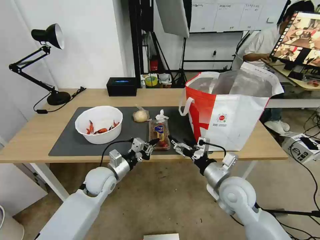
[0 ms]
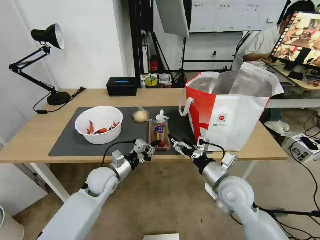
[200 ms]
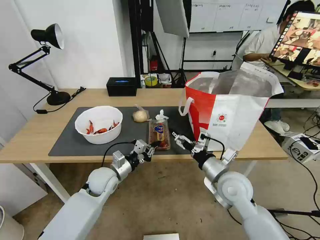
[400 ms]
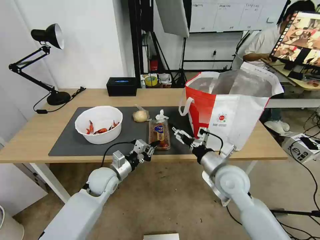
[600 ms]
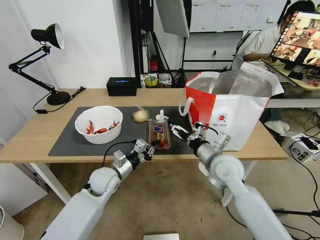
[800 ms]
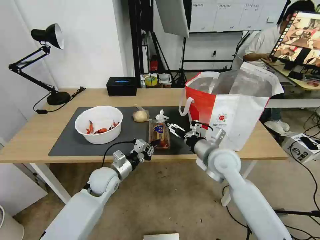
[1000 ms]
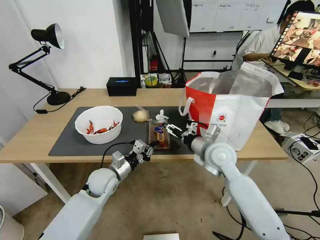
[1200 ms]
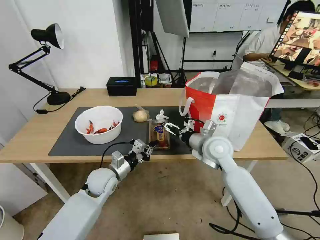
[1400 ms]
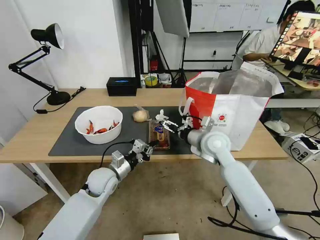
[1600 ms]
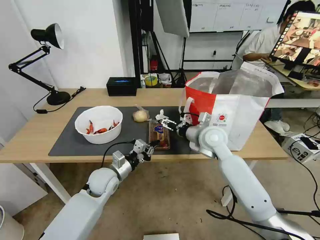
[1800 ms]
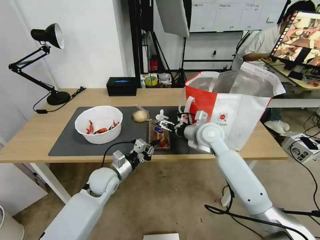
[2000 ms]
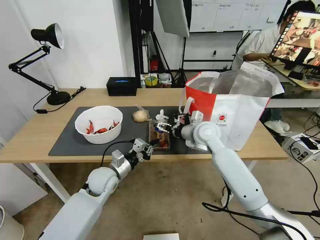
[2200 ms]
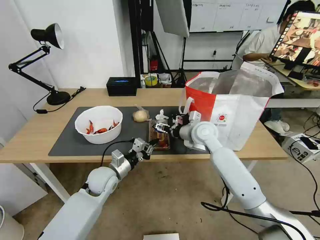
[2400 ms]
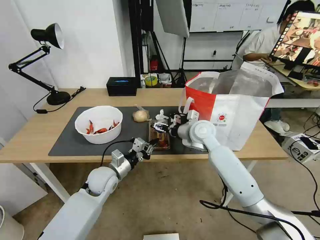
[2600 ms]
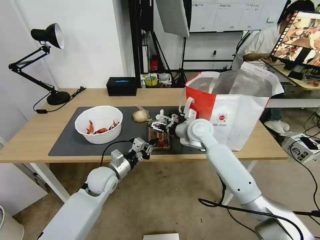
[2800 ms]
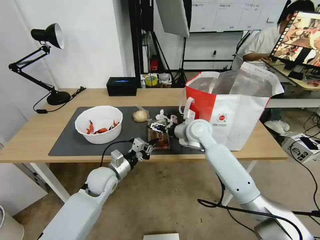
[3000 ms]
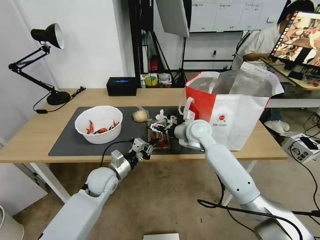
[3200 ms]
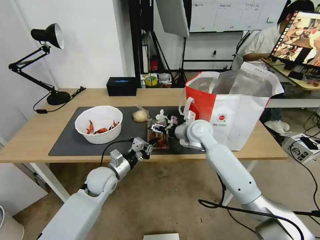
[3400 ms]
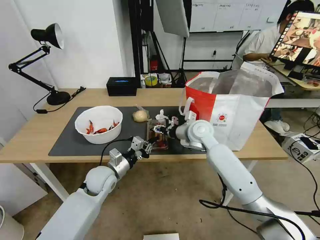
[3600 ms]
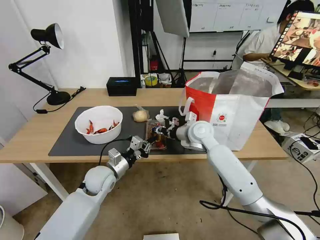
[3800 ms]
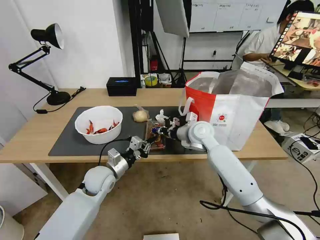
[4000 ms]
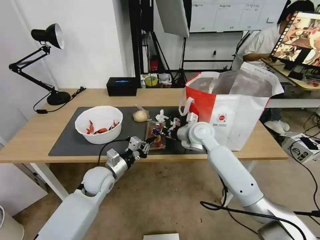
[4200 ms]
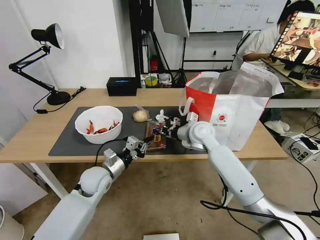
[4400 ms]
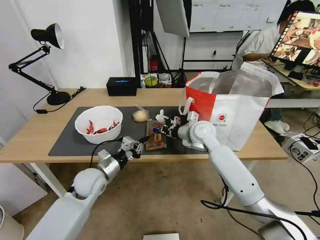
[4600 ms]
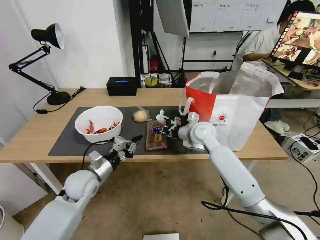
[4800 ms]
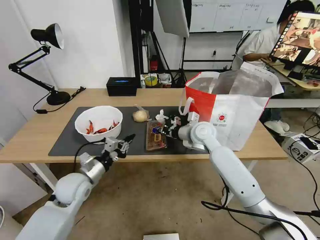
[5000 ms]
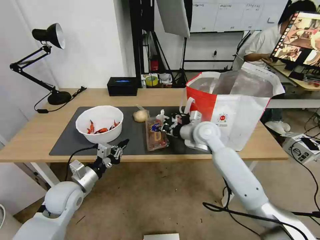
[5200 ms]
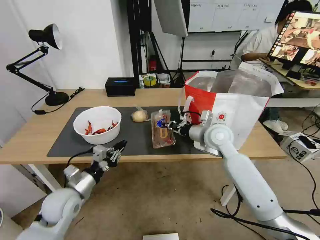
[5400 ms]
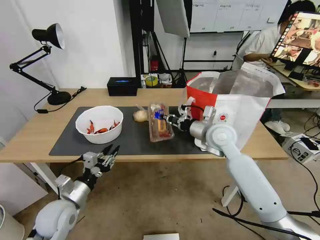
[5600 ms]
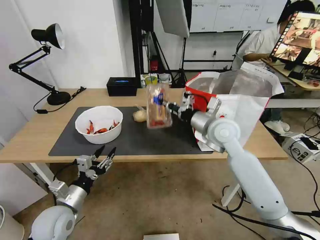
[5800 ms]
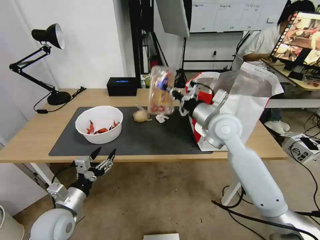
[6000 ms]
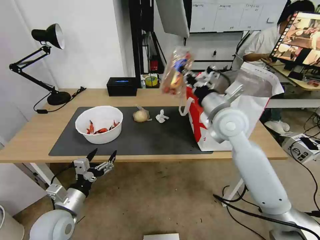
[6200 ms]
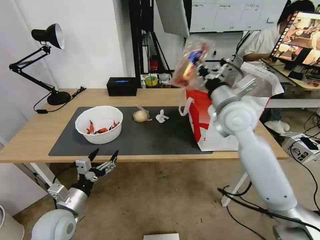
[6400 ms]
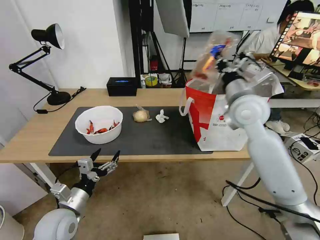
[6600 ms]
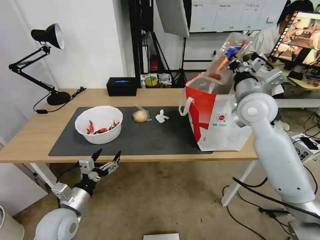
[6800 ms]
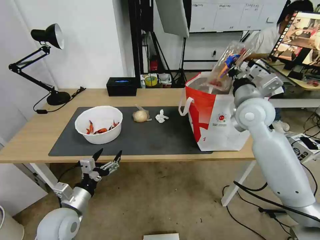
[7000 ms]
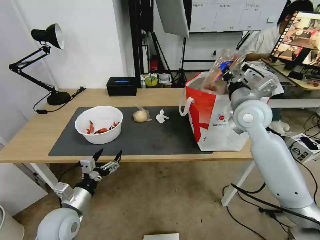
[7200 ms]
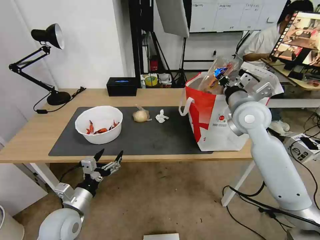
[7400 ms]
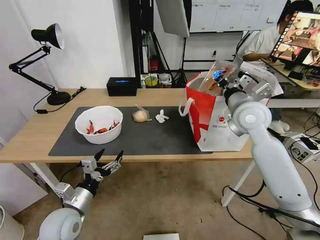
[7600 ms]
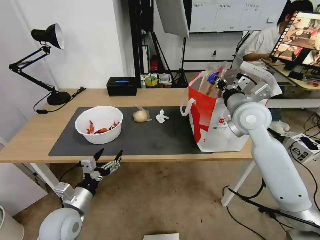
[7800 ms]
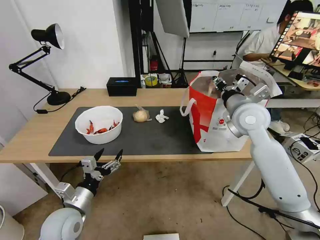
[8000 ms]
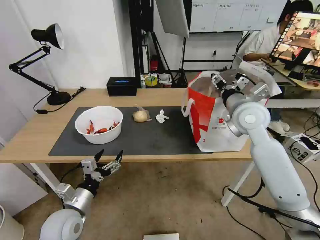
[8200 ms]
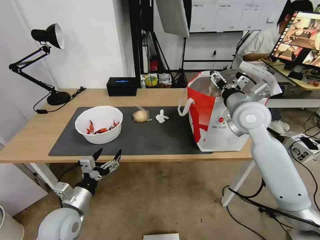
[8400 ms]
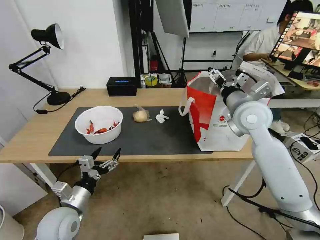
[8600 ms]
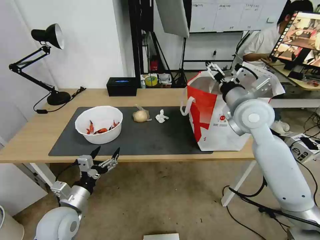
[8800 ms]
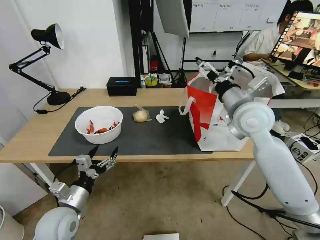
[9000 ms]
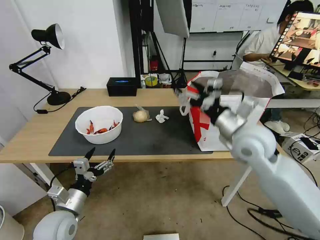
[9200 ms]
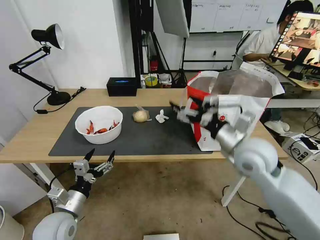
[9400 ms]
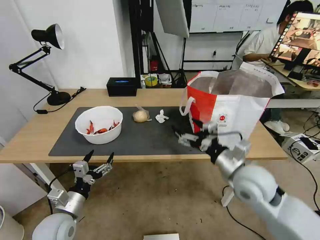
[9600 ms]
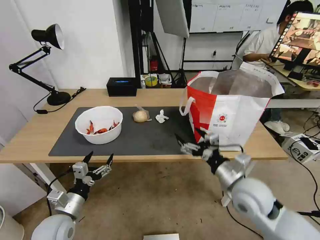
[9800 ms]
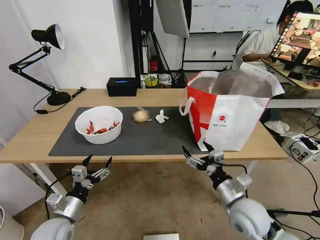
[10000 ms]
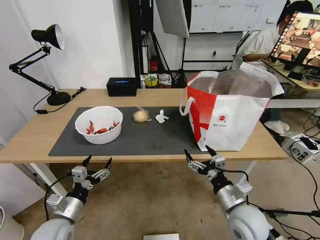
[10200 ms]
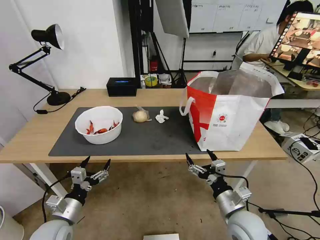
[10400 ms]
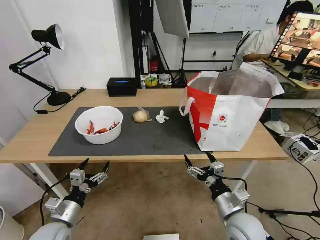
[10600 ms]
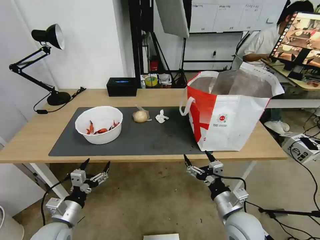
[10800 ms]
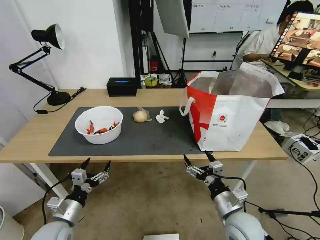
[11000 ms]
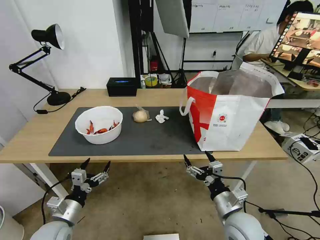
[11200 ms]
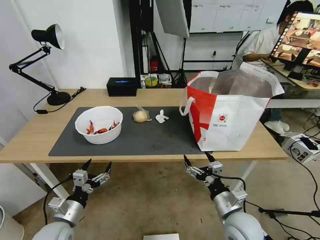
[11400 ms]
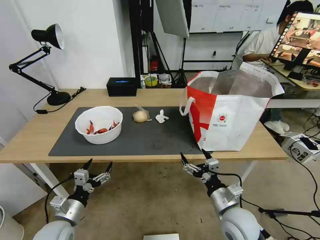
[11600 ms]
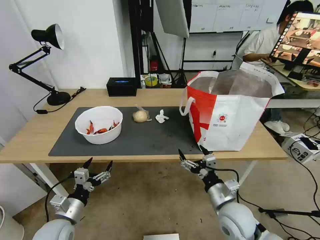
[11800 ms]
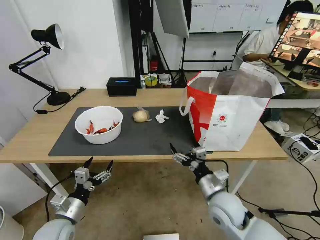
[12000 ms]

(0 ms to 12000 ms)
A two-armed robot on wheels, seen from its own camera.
Task of the whole recording: Pick up the trash from the table and place it into the takeout bag.
0 ms - 1600 ms: The right gripper is displaced forward and upward by approximately 15 cm.
1600 ms - 3000 ms: The right gripper travels forward by about 5 cm.
3000 ms - 4400 ms: The right gripper closes up.
4400 ms - 6000 ms: The left gripper moves backward and to the left, about 15 cm, and opens, while the right gripper shifts approximately 10 cm upward and backward.
6000 ms - 7600 ms: The right gripper is displaced to the right by roughly 5 cm.
7600 ms - 9000 ms: The right gripper opens up.
9000 ms - 10400 ms: The left gripper ends up about 5 cm from where it was, while the right gripper is displaced downward and backward by roughly 30 cm.
10400 ms - 12000 ms: The right gripper moves approximately 5 cm.

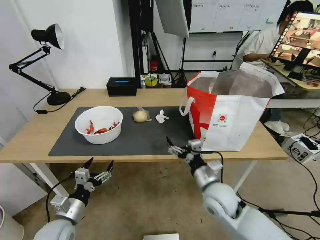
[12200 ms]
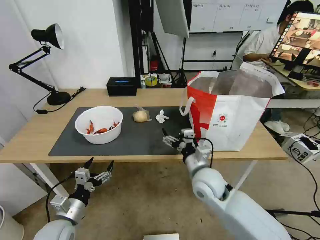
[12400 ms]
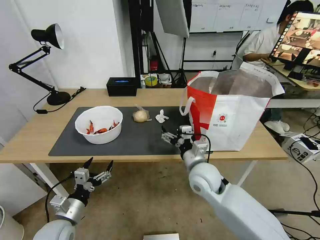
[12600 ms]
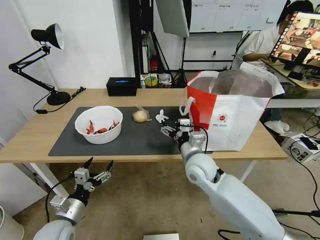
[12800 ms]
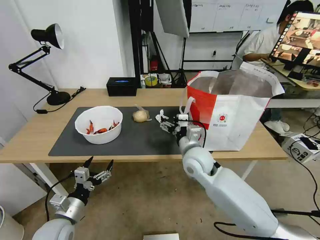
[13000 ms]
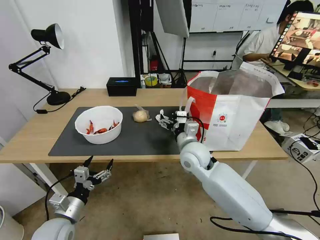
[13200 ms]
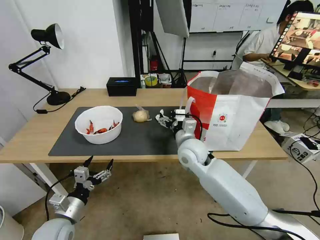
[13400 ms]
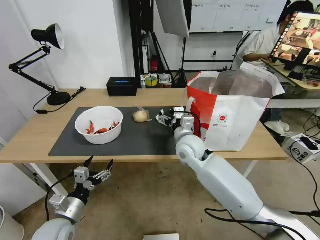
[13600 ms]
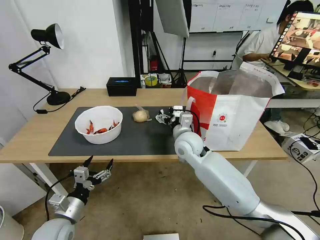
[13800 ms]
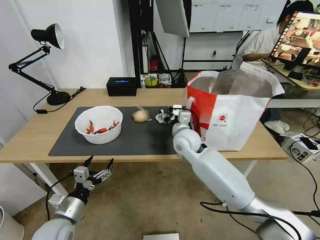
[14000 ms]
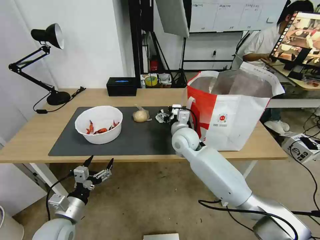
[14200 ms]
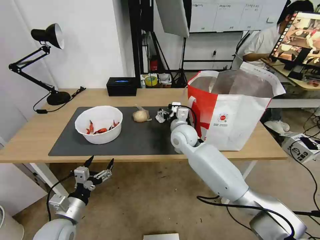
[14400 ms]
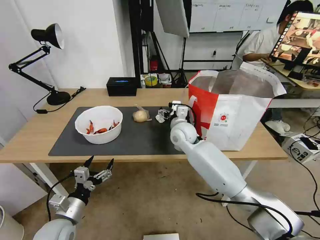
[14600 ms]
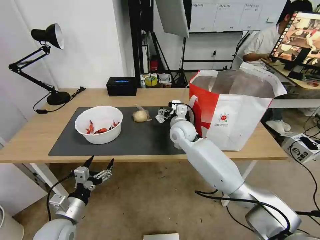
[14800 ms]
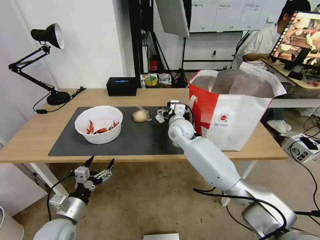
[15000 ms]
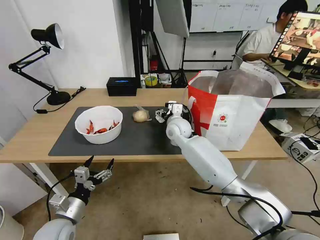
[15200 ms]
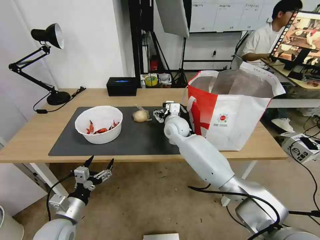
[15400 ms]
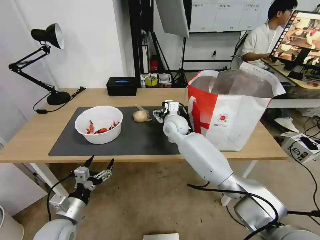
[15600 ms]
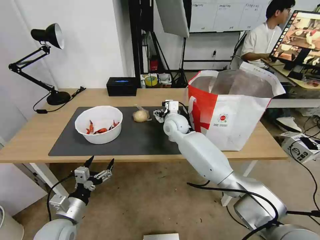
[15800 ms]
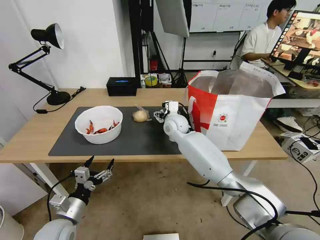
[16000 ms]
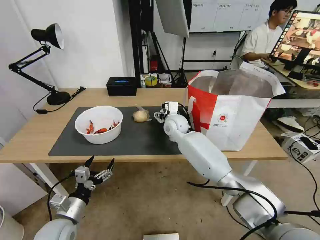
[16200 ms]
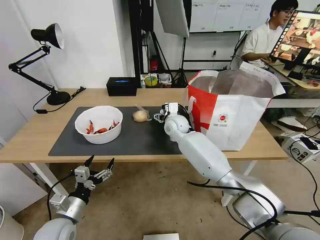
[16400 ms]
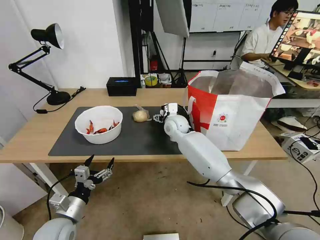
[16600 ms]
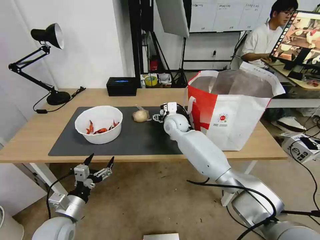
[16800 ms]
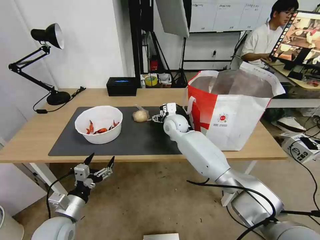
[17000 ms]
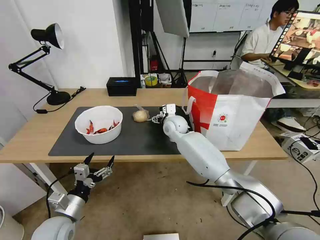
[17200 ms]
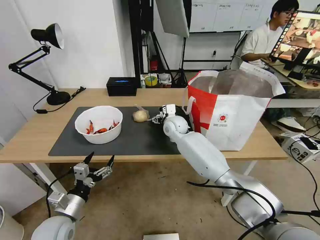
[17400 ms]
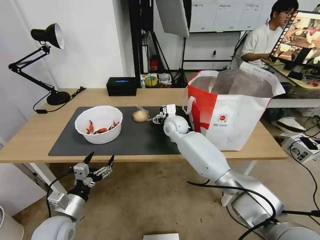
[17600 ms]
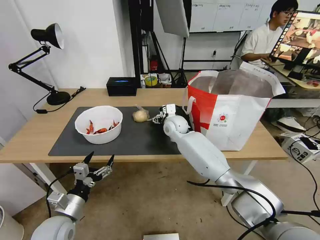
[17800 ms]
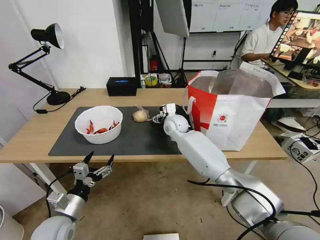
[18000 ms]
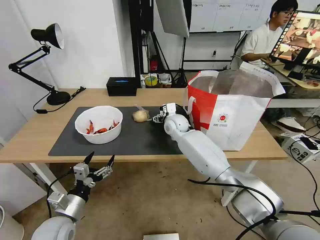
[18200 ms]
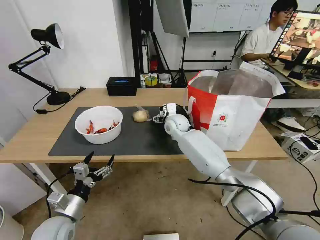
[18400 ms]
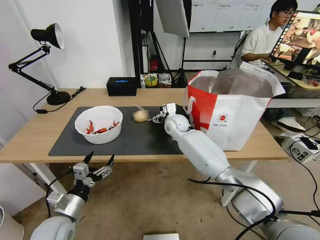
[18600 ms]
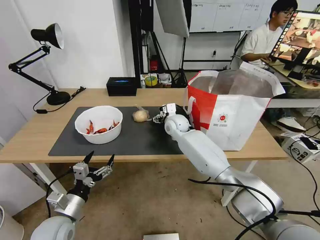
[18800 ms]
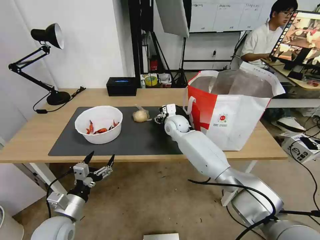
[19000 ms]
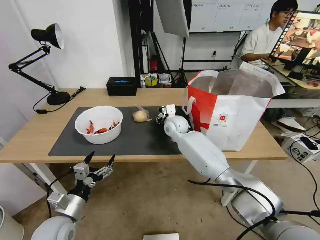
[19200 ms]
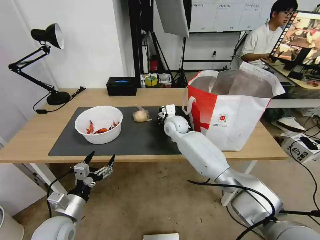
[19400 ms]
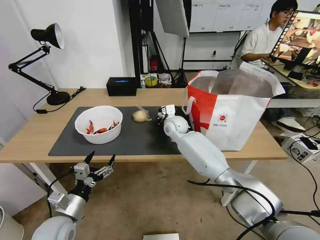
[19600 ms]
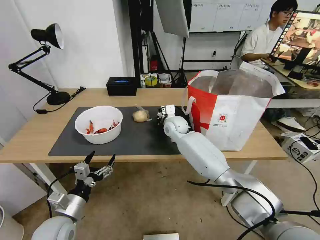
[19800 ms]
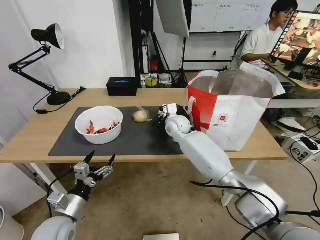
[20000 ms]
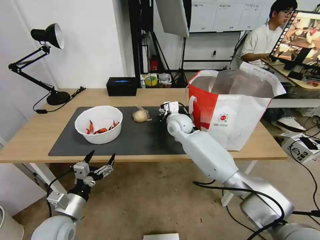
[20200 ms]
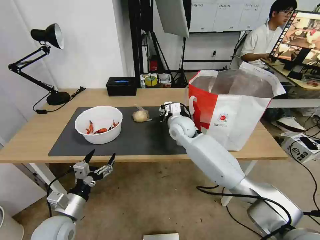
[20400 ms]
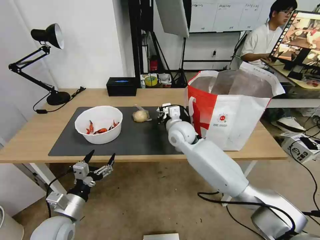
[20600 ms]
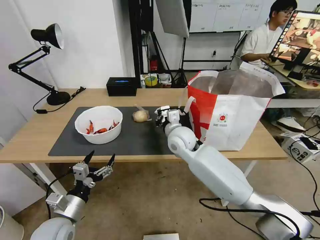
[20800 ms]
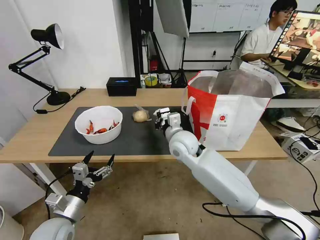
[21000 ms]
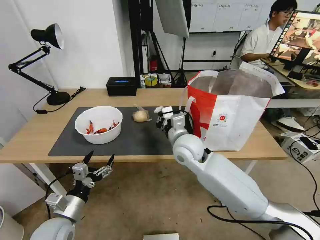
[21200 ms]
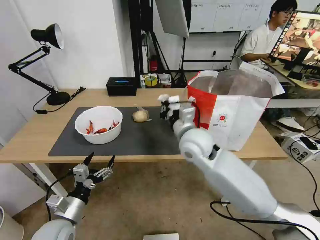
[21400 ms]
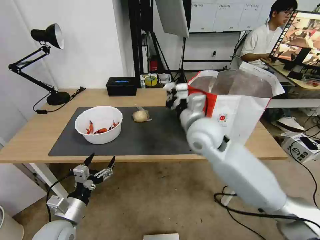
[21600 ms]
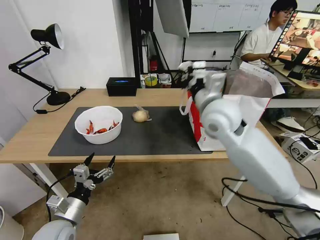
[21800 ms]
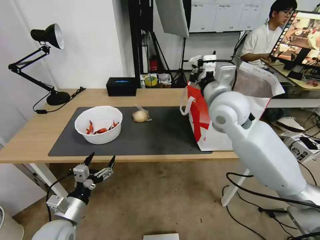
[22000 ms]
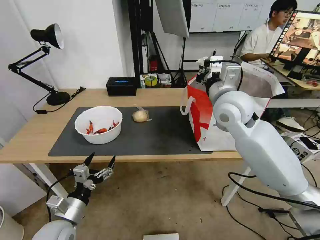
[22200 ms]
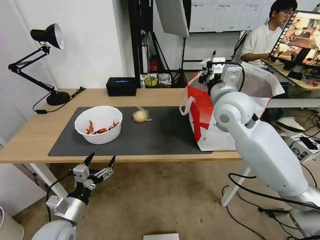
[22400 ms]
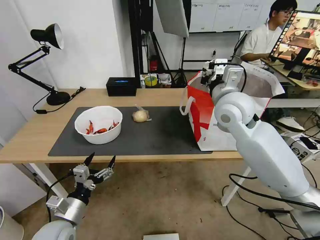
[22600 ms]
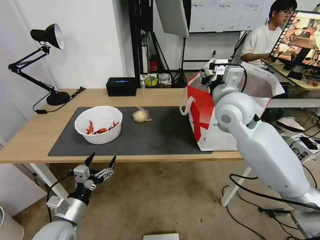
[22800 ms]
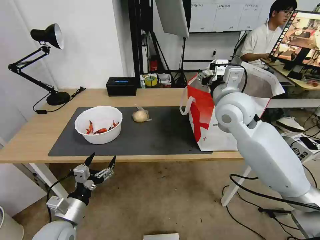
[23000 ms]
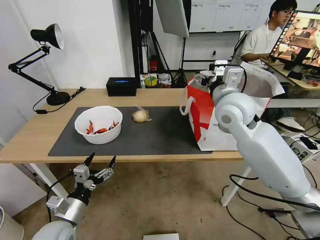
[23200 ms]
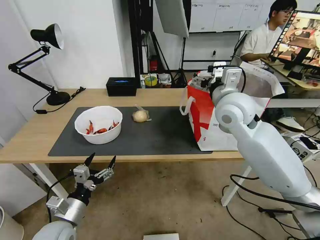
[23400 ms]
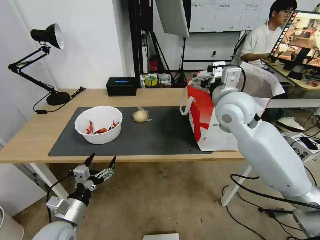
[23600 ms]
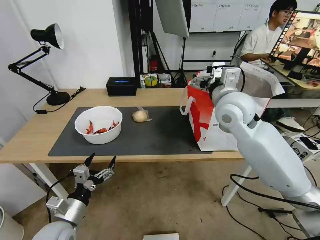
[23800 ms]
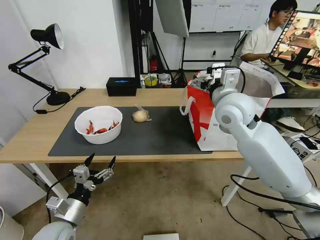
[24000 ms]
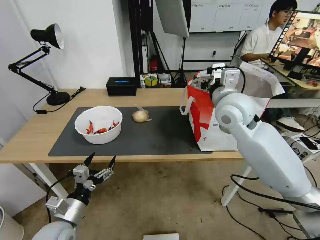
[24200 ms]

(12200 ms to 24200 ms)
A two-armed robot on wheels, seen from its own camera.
Task of the whole recording: Pick up the trash from the table and place it into the takeout bag.
12200 ms - 13800 ms: The right gripper shifts roughly 15 cm forward and to the left.
13800 ms - 15200 ms: The right gripper heads forward, covering some 10 cm.
15200 ms - 16600 ms: There are only small adjustments of the grippers.
16600 ms - 18200 ms: Neither gripper changes place.
18200 ms - 19800 ms: The right gripper closes its fingers.
19800 ms - 21200 ms: The right gripper moves backward, some 15 cm.
21200 ms - 22600 ms: The right gripper heads upward and to the right, covering about 15 cm.
22600 ms - 24200 ms: The right gripper opens.
